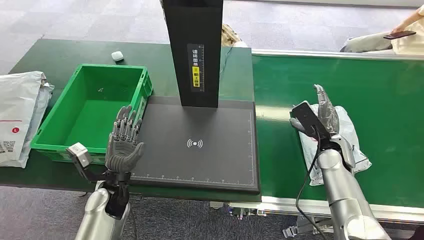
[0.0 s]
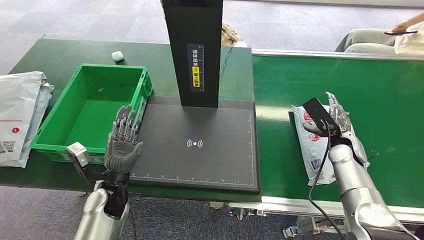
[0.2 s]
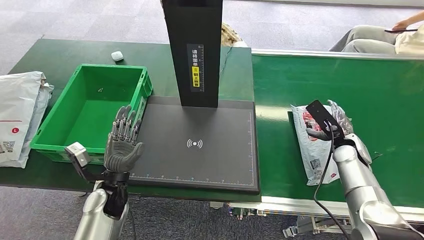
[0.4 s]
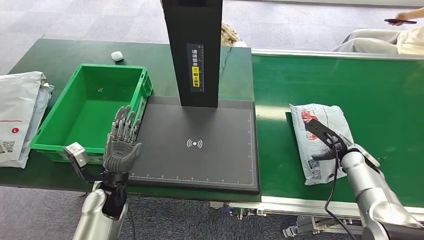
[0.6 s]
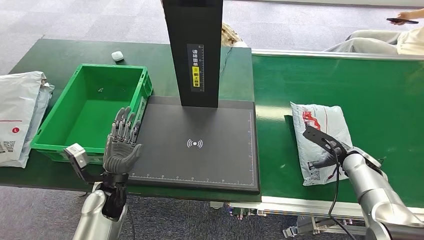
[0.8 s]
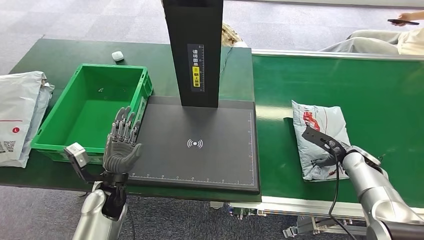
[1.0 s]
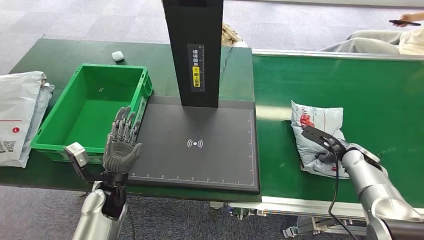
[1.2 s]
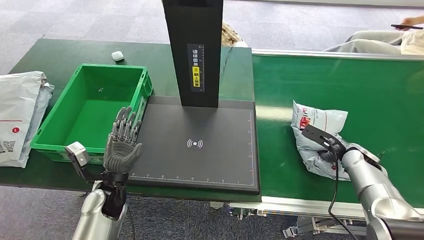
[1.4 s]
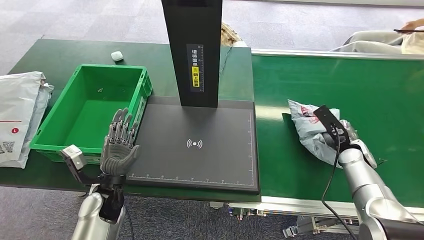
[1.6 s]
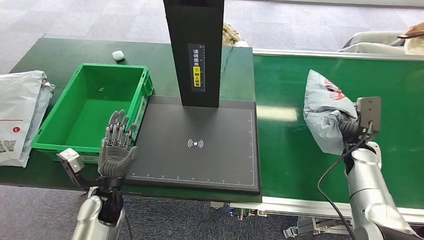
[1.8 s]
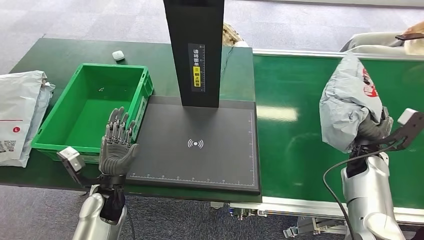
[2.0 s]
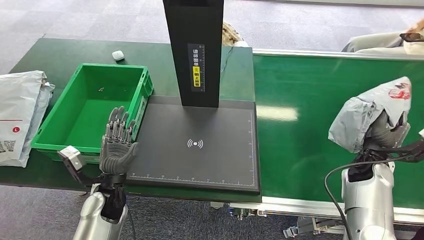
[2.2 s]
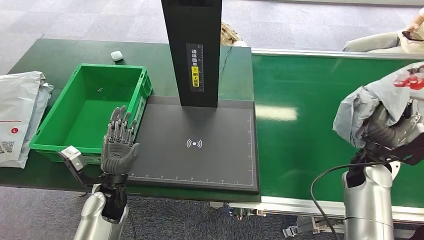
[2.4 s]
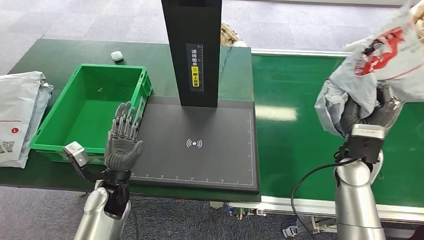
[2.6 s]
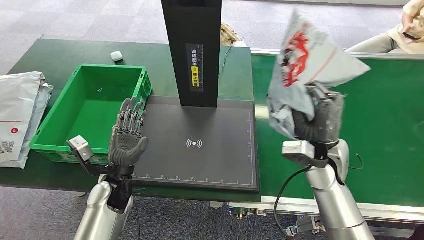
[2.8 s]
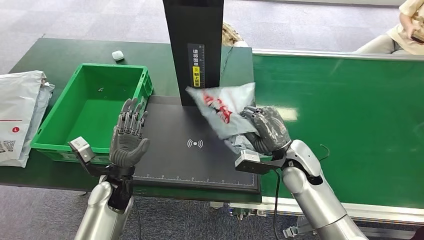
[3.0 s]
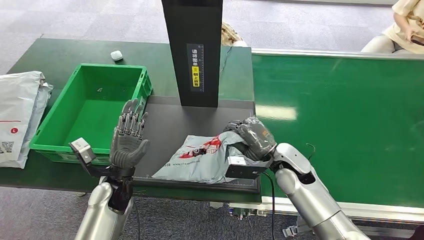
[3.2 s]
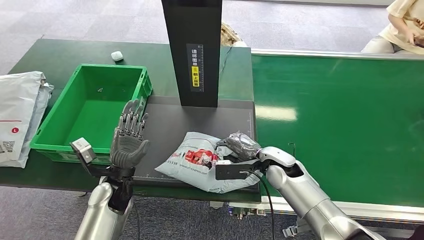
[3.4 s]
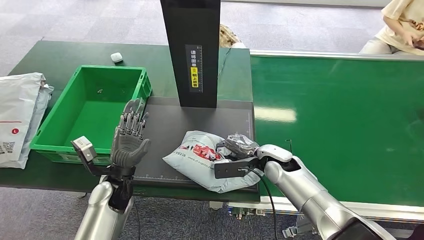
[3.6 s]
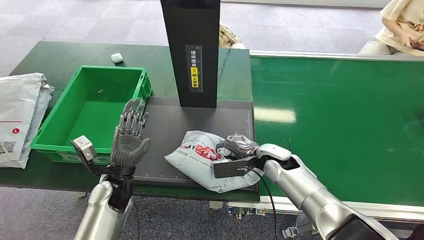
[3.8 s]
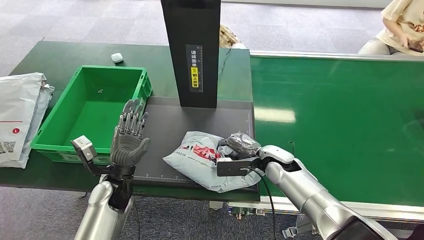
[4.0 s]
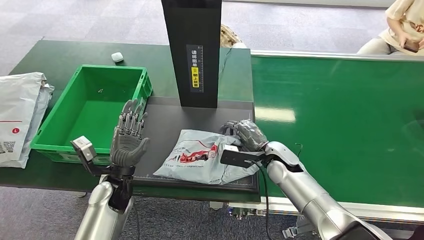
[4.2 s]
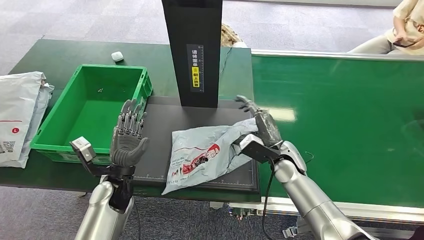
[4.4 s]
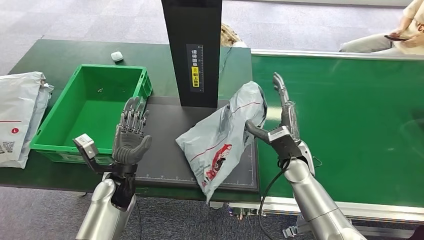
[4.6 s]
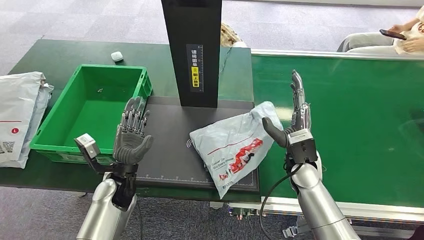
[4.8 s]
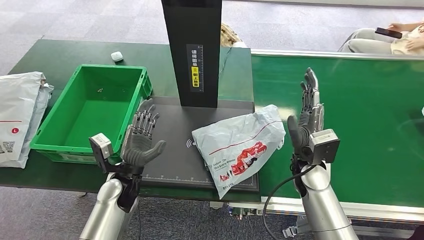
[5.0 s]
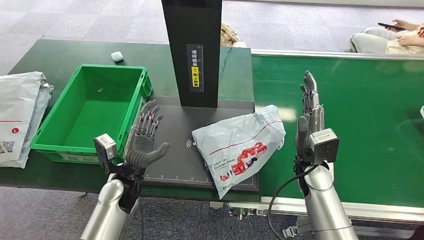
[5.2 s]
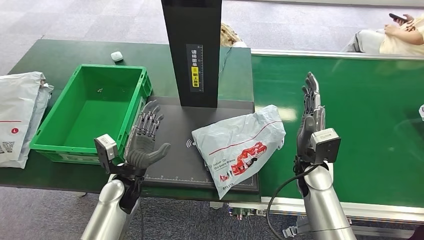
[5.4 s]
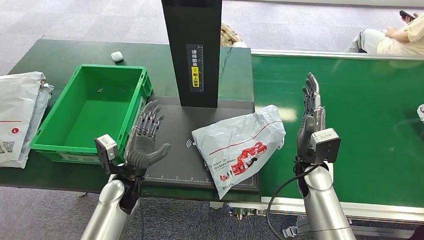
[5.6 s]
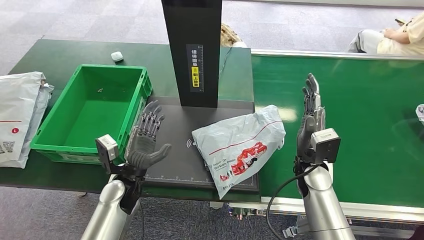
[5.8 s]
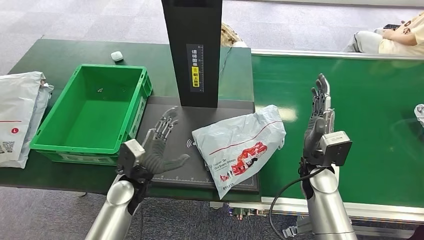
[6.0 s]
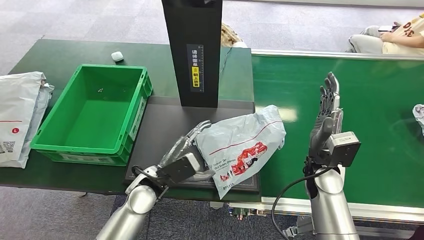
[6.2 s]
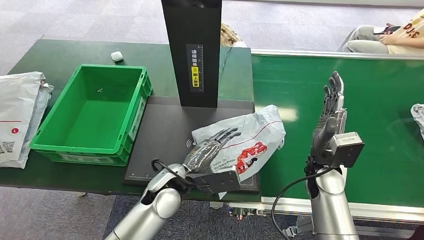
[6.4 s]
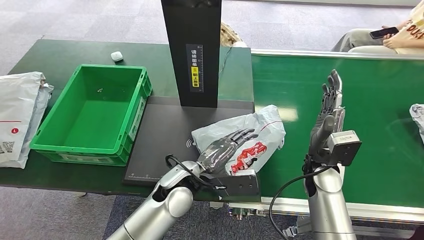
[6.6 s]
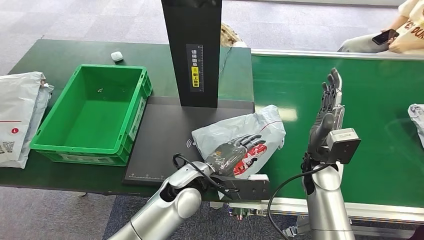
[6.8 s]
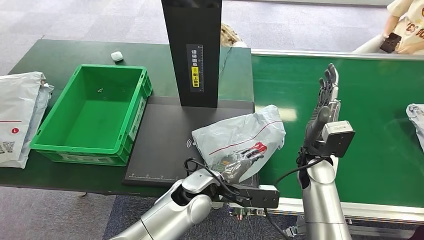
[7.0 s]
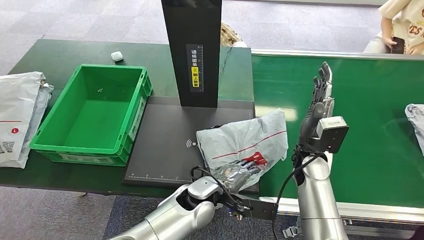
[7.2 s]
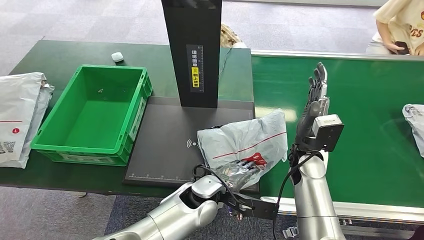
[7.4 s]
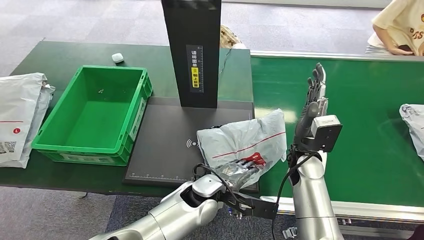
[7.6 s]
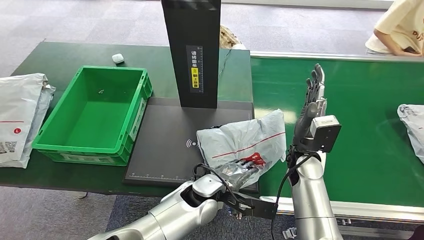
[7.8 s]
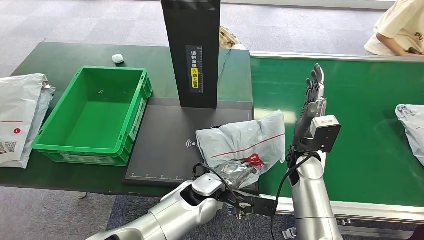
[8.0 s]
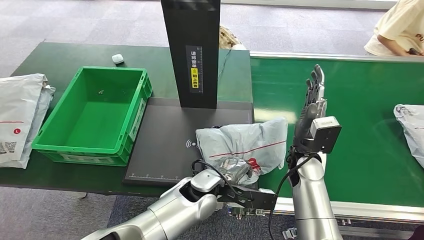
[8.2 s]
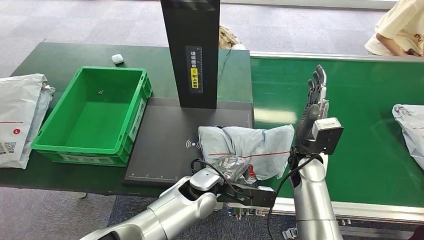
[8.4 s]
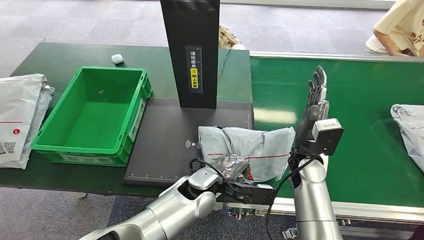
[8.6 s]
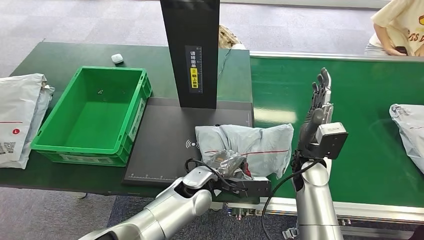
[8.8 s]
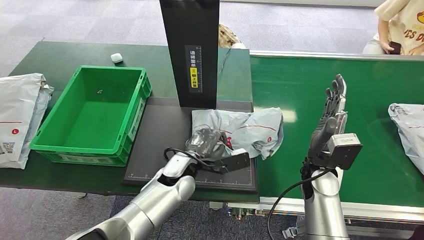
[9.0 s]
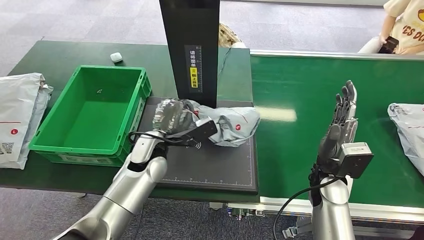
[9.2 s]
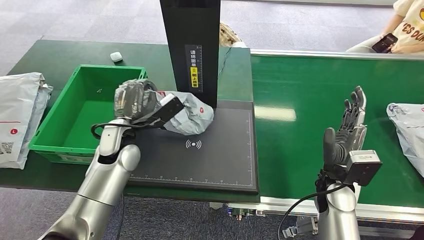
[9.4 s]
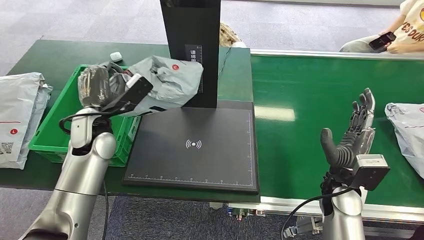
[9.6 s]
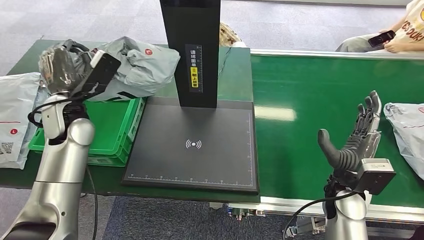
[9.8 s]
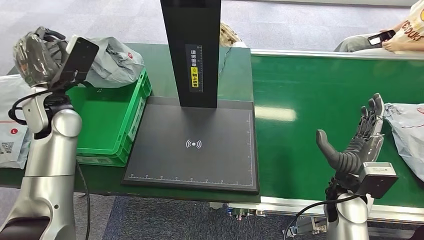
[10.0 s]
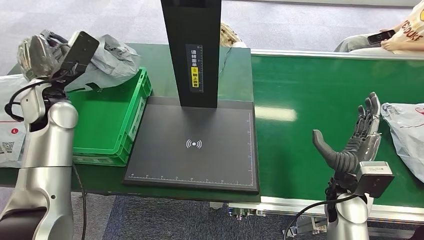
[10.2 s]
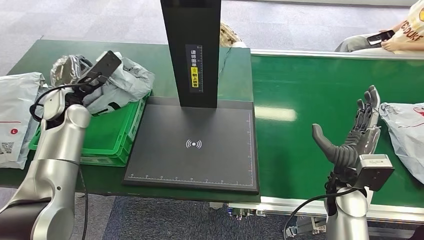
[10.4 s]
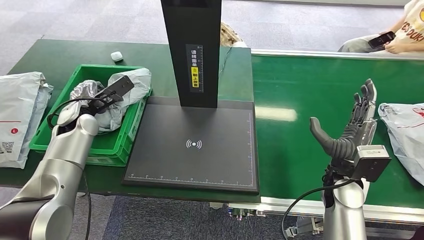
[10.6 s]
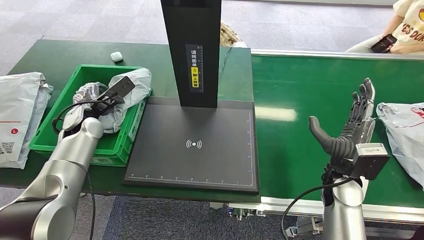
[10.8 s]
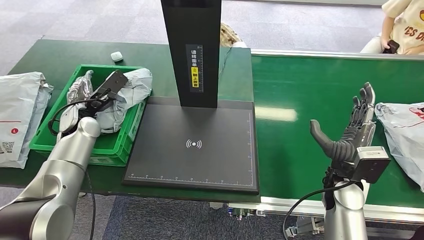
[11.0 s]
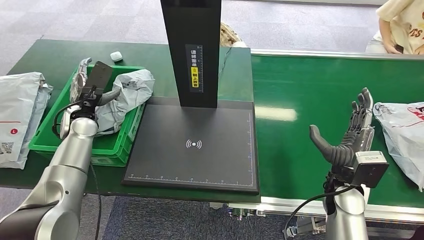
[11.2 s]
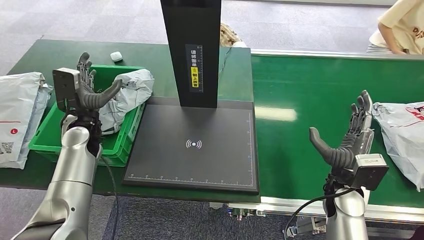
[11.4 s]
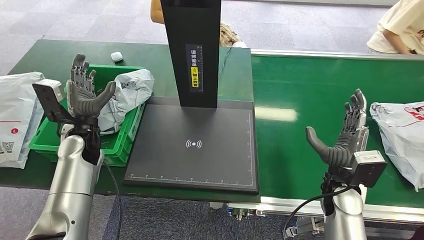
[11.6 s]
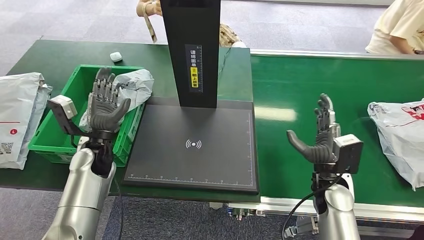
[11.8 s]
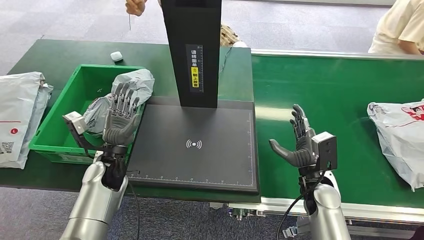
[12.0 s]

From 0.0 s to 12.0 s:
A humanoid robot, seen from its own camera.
Step, from 0.0 s to 2.2 s: Pick up the package from the conveyor belt.
Step, from 2.4 s to 5.4 s: Place the package onto the inbound machine.
Step, from 5.6 s to 9.6 s: Pick up the package from the inbound machine.
Step, from 9.8 s to 12.0 s: Place the package into the parcel locker.
From 3.0 s to 4.4 s: The right hand moves downward, approximately 5 cm.
From 4.4 s to 6.0 s: The right hand moves approximately 5 cm.

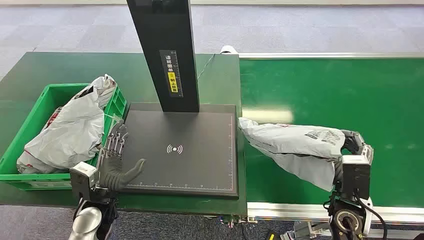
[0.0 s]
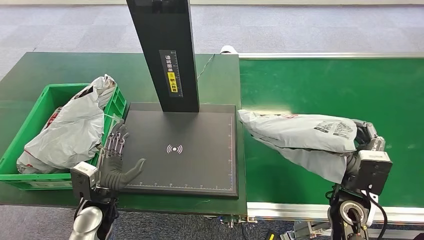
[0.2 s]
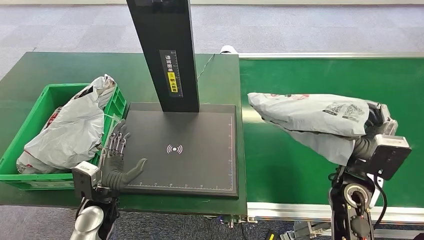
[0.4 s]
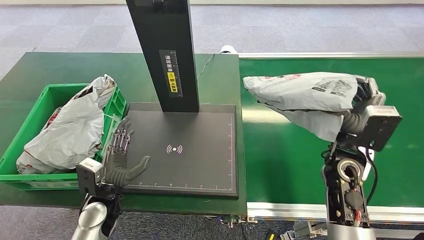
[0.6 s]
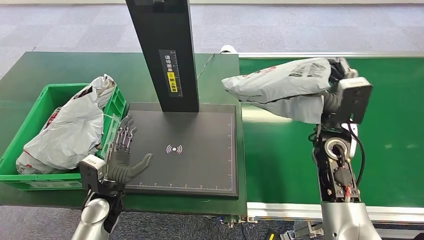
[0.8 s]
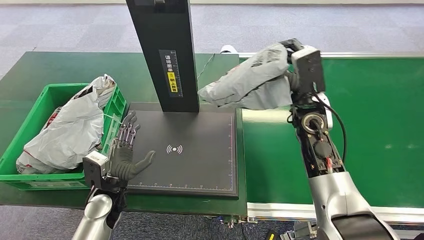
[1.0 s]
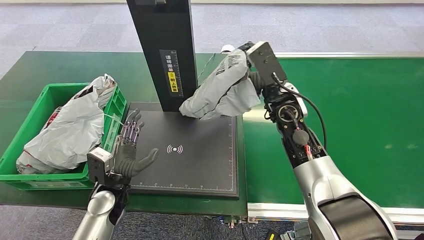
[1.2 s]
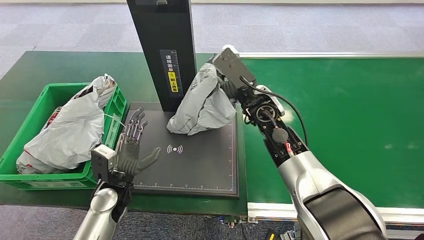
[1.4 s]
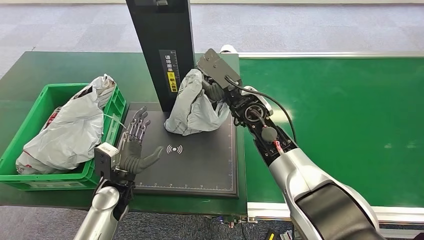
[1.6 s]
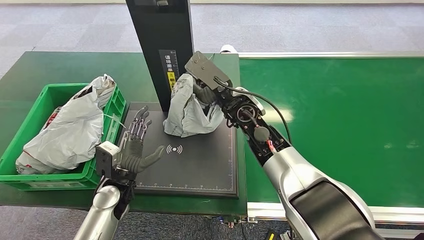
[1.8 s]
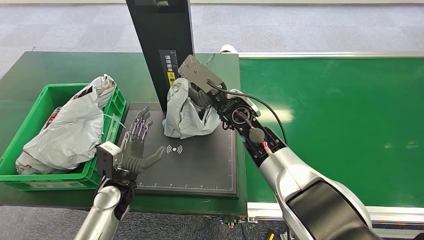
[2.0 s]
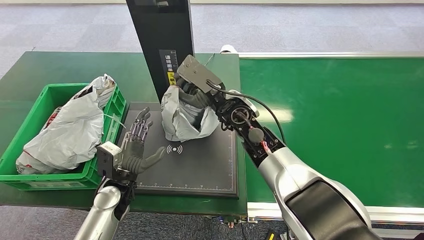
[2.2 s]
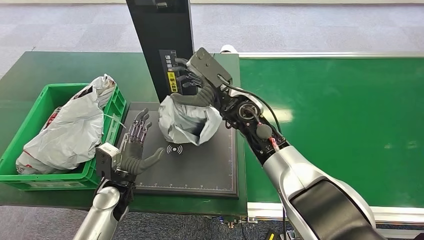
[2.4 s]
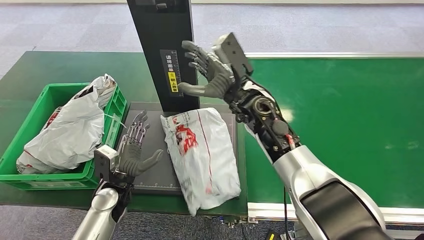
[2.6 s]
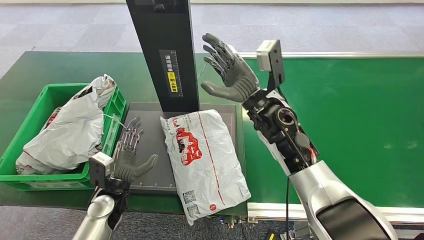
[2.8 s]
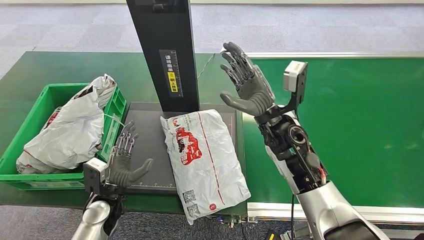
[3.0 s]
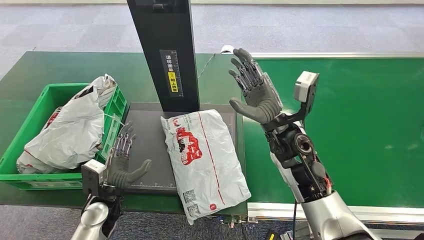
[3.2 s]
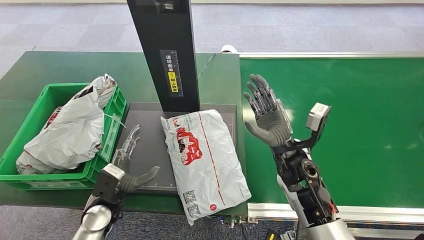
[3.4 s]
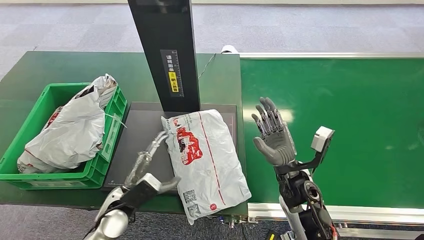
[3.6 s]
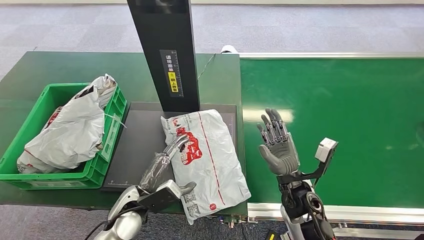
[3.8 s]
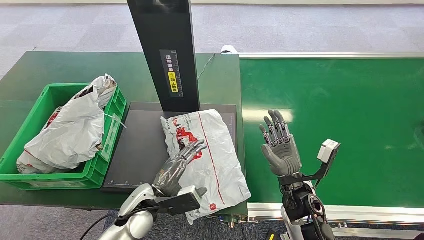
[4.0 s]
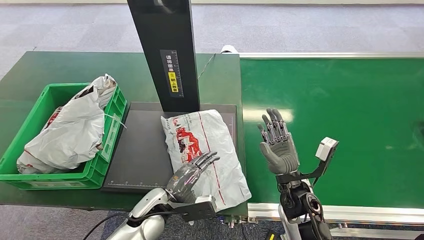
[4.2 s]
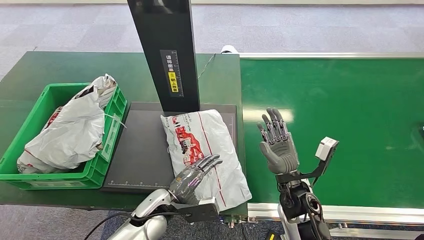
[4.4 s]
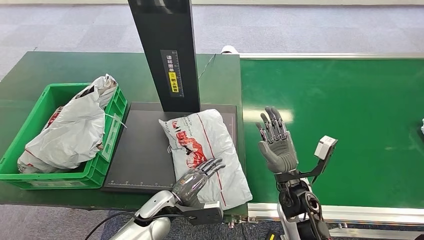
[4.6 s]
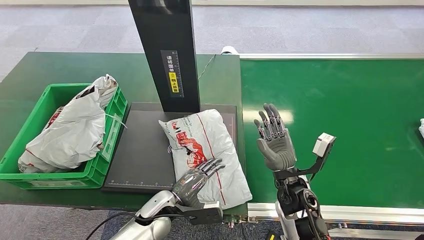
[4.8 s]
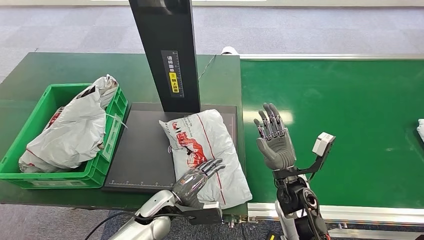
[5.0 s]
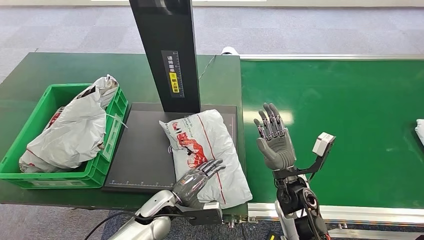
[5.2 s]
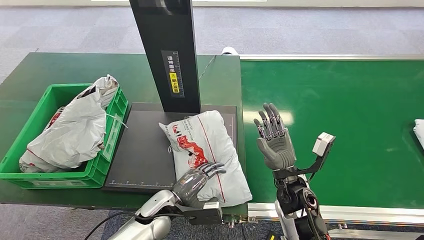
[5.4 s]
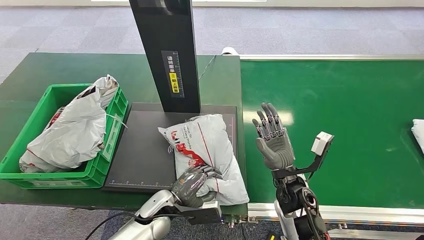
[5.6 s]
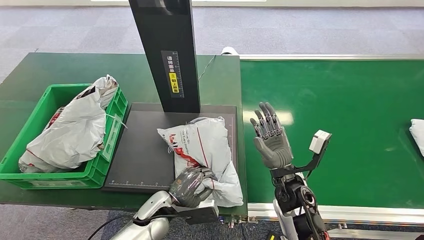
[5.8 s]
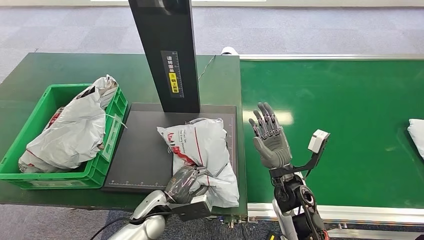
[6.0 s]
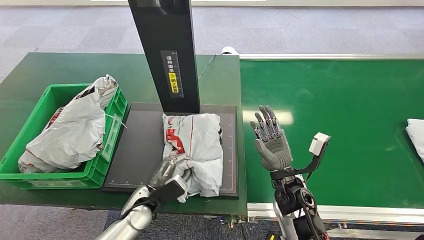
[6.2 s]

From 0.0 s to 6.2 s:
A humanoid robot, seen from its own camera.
From 3.2 s to 4.6 s: The left hand heads to the right, covering about 15 cm. Meanwhile the right hand is displaced downward and backward by some 15 cm.
